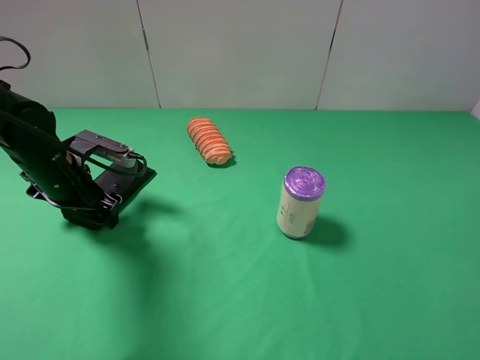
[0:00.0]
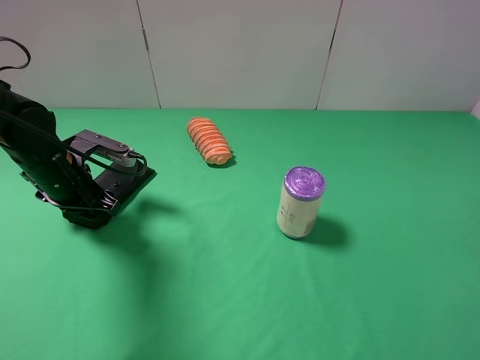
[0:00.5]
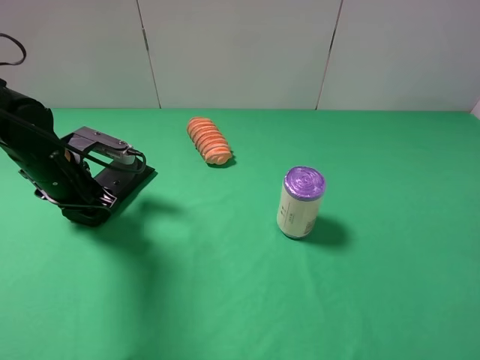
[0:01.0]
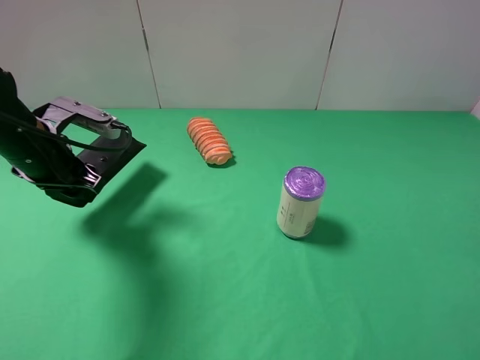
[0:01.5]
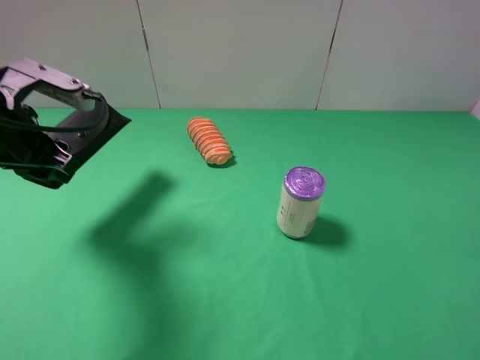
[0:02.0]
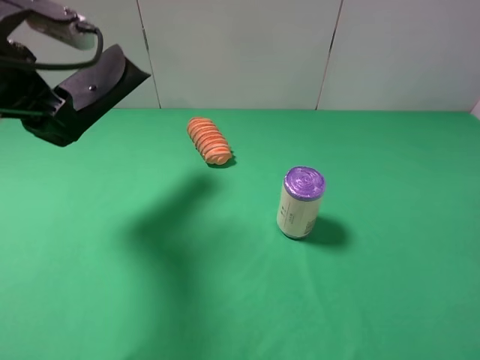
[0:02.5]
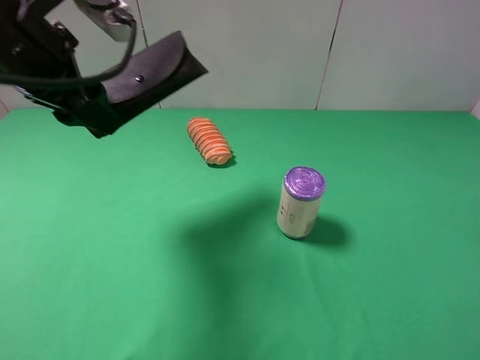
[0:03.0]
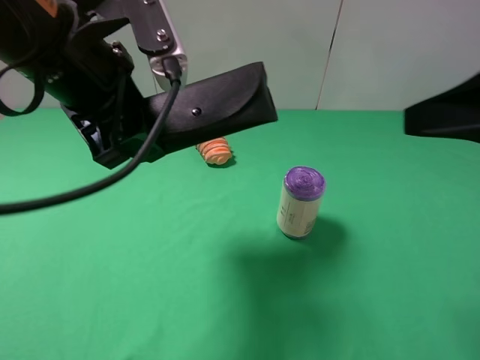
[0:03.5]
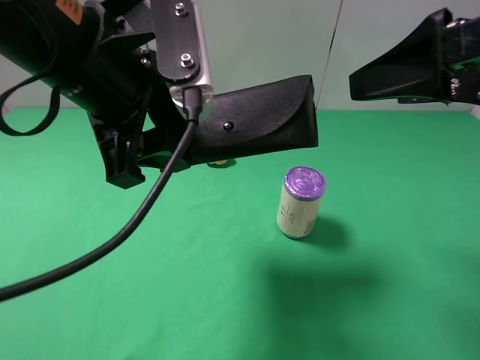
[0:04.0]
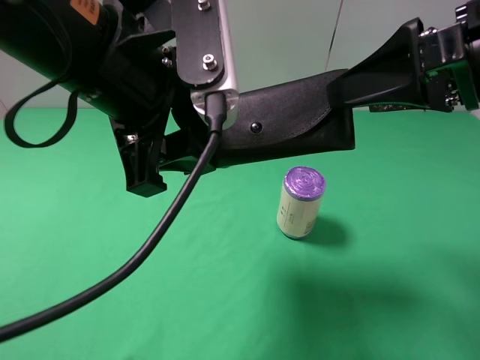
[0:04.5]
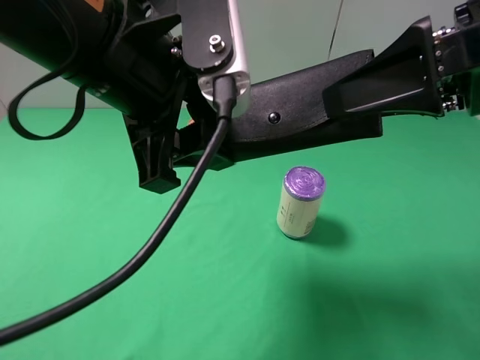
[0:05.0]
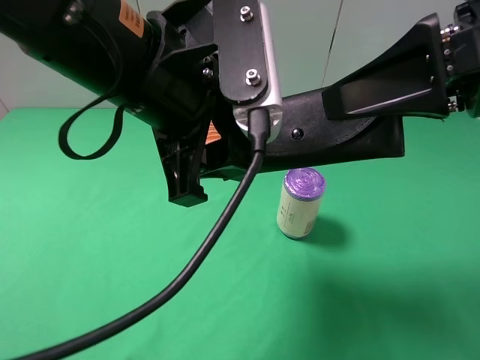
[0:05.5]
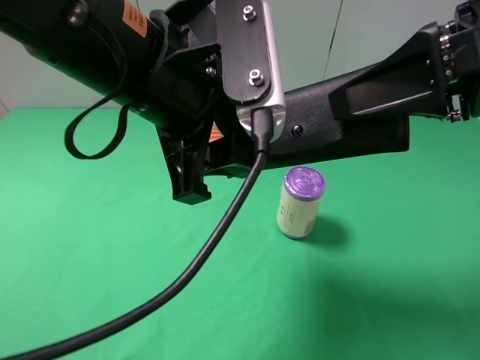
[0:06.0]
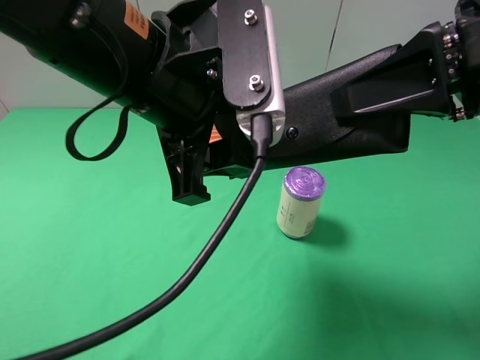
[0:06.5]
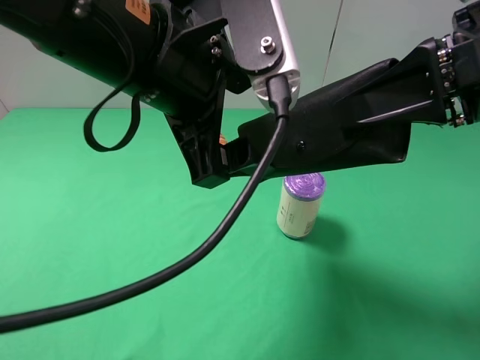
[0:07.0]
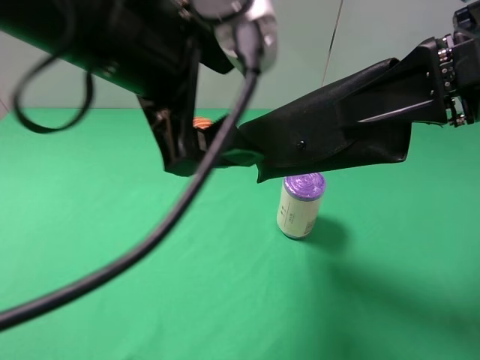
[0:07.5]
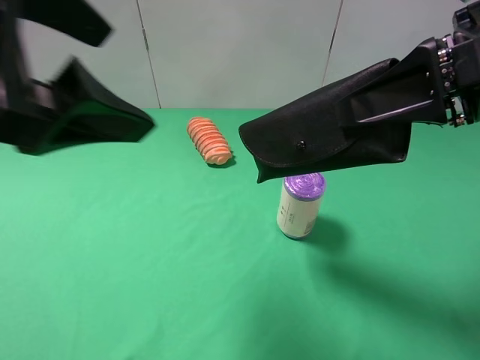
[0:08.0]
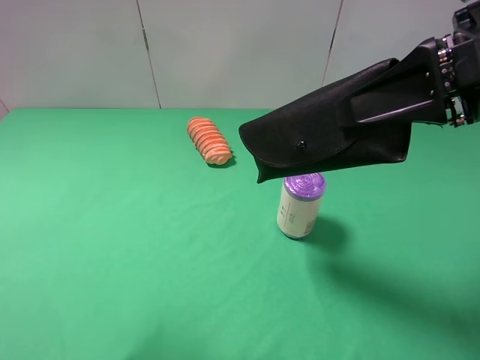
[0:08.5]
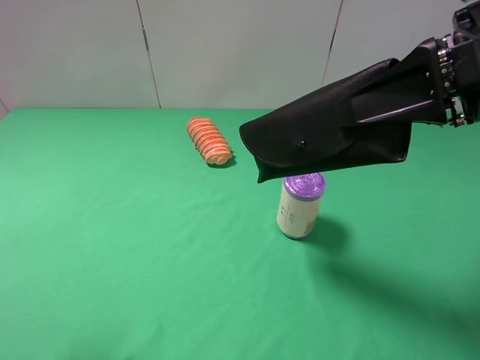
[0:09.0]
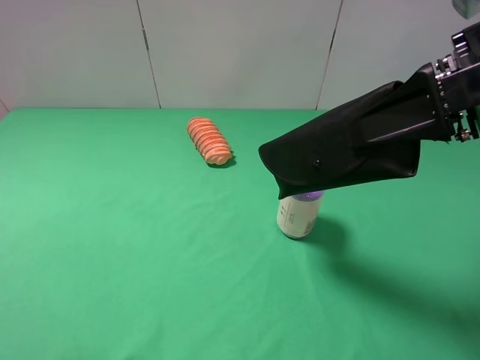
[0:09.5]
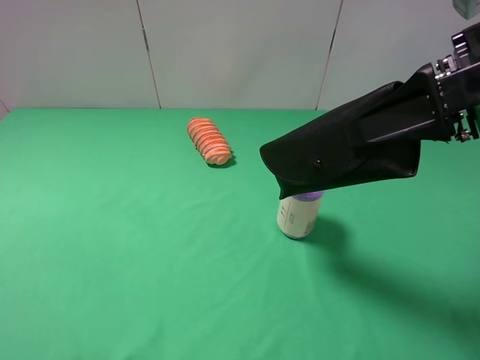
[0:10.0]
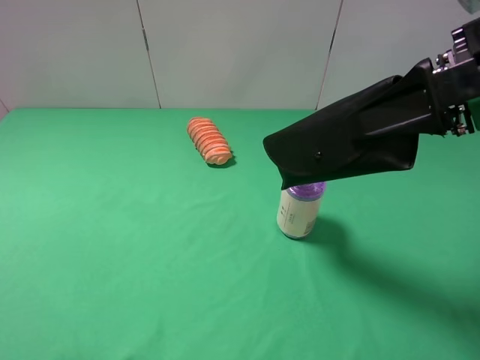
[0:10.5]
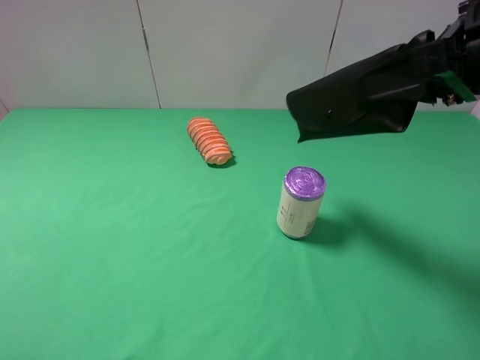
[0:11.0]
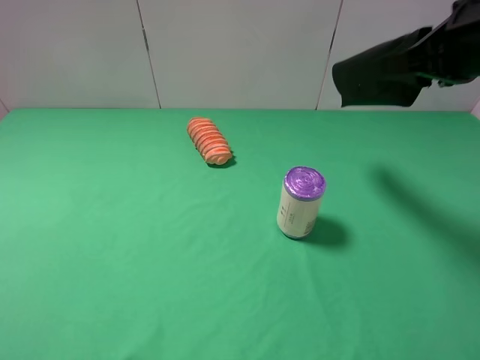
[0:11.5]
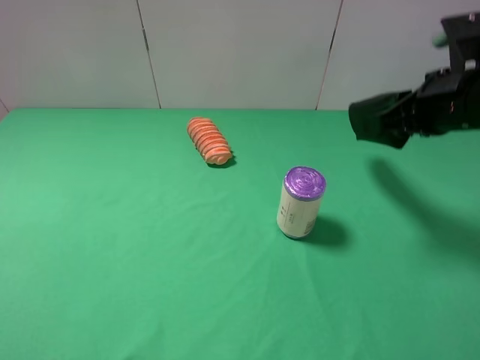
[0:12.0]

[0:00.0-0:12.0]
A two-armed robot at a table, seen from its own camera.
Task of the whole recording: use the left gripper to pick up the item and transfer it from the left gripper to the right gripper.
Step, 0:01.0 to 0:07.0: Pass the eyeglass case to the right gripper.
0:00.0 to 0:02.0: The left gripper shifts about 15 cm upward, and closes.
0:02.0 to 0:04.0: The right gripper goes about 20 cm forward and to the left. Meanwhile the left gripper goes some 15 cm to the right and upward.
0:04.0 to 0:06.0: The right gripper closes up.
0:06.0 to 0:08.0: The left gripper goes roughly 15 cm to the left, upward and backward, and opens its fingers.
0:08.0 to 0:10.0: The left gripper goes some 20 cm to the left, backward and downward.
0:10.0 to 0:12.0: The right gripper heads downward and forward, covering approximately 10 cm.

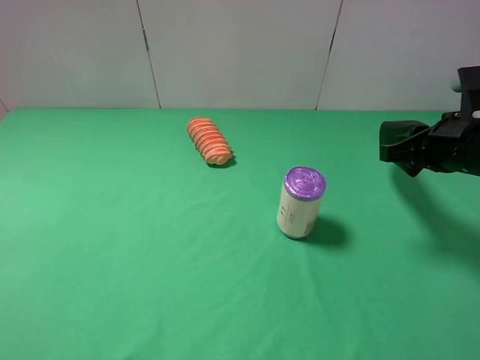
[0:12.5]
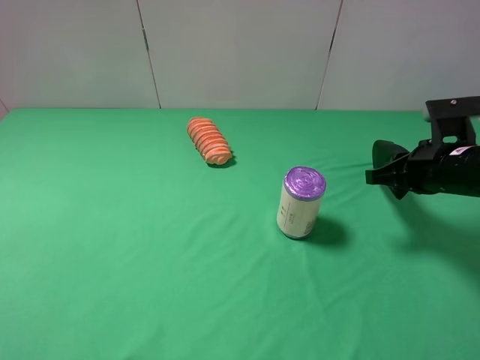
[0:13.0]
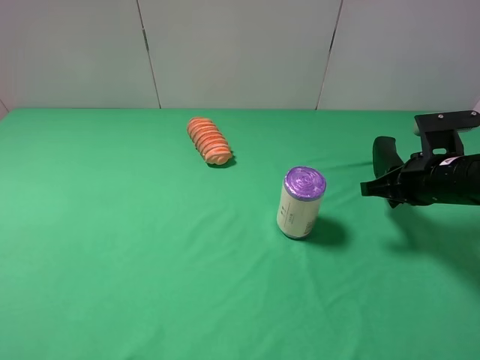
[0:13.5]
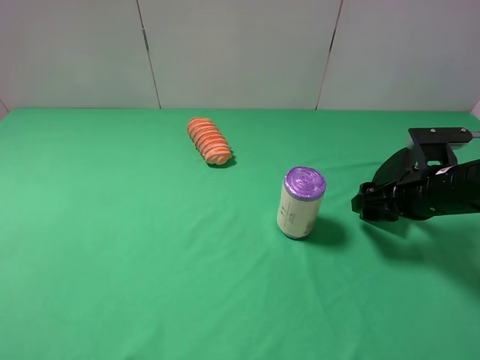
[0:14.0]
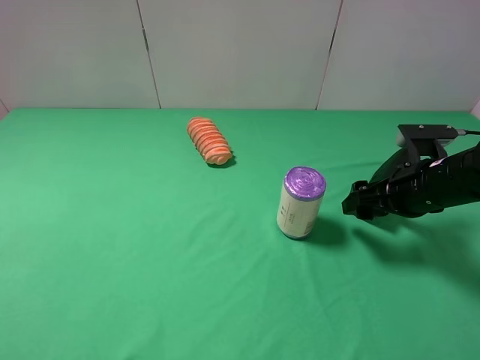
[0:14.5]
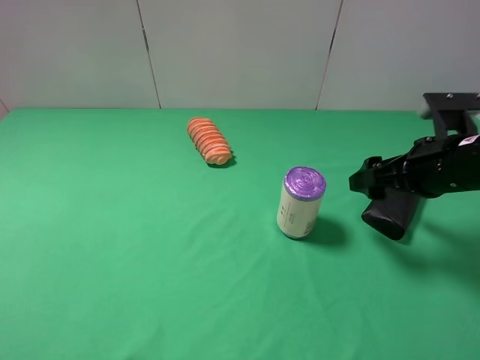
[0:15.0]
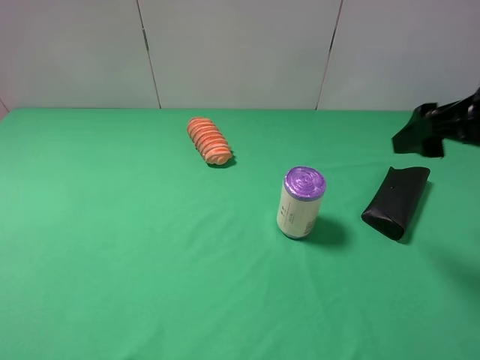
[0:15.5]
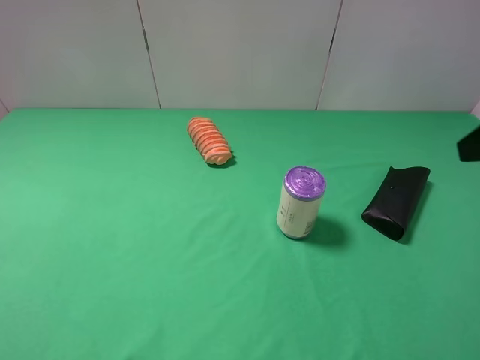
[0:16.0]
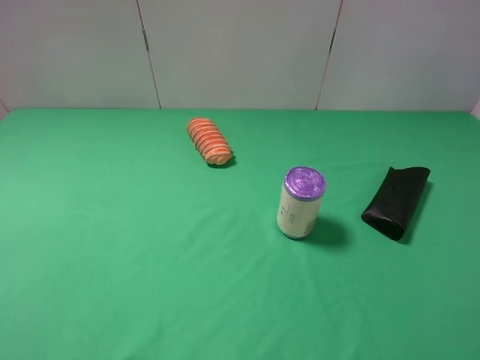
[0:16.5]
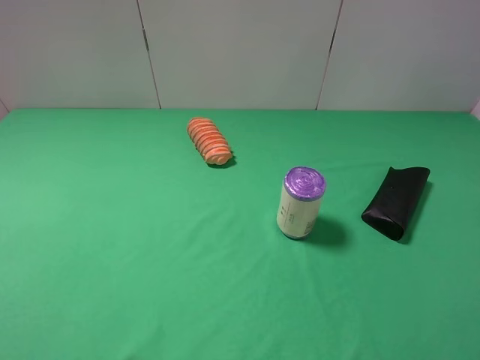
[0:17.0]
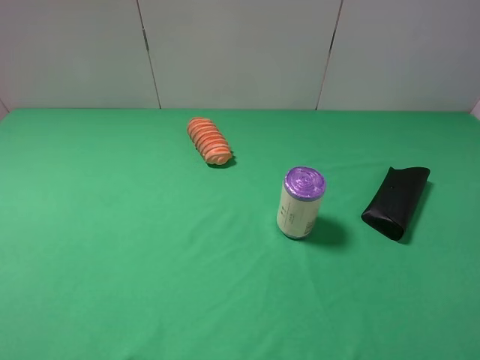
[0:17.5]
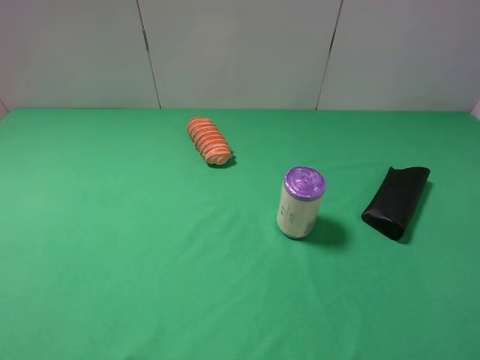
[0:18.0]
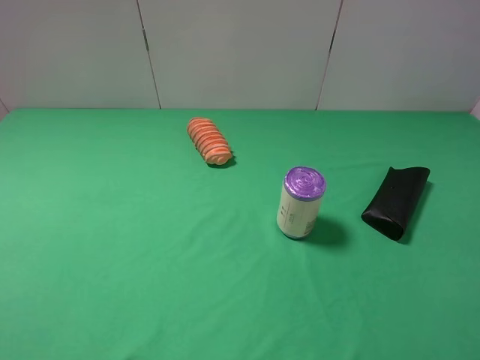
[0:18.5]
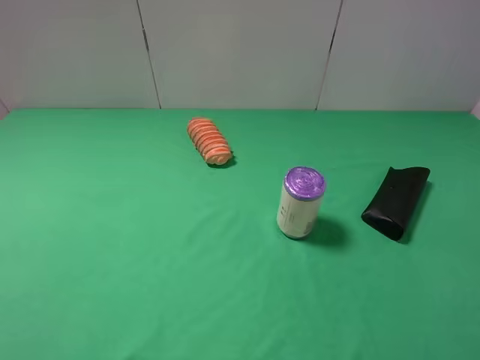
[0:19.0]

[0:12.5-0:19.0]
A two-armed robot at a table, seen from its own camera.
Task of the whole recording: use the left gripper to pick up the item and transfer it from the left gripper to the right gripper.
Step, 0:12.5 to 0:15.0: The right gripper places eyeglass case on the right side of the table.
0:12.5 to 0:14.5: The right gripper moves downward, approximately 5 cm, and opens up.
0:14.5 to 0:17.0: The right gripper travels backward and upward by some 30 cm.
